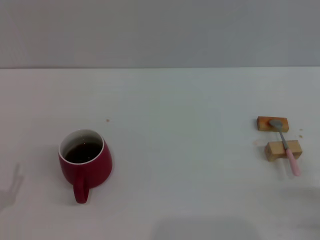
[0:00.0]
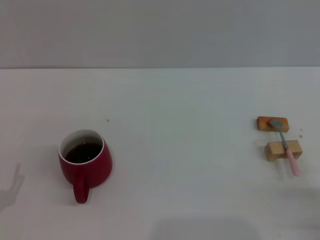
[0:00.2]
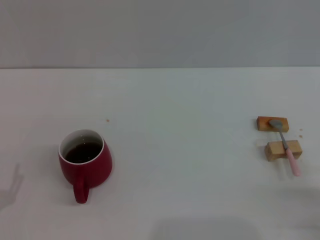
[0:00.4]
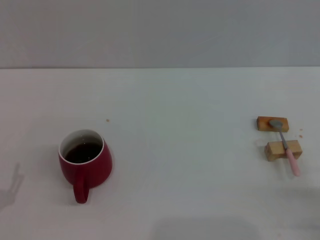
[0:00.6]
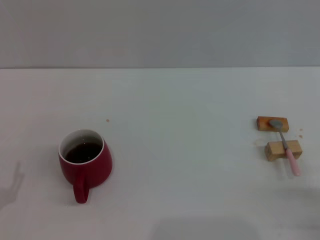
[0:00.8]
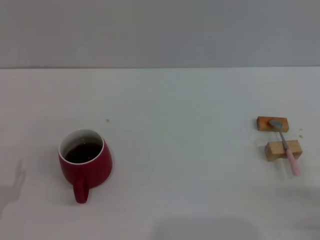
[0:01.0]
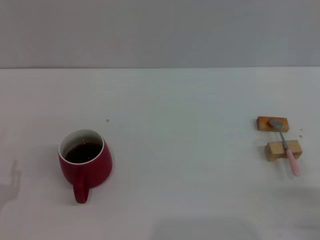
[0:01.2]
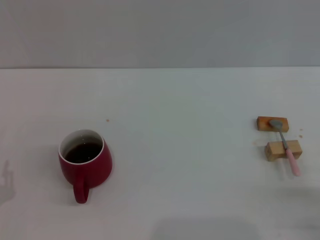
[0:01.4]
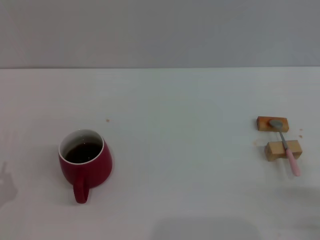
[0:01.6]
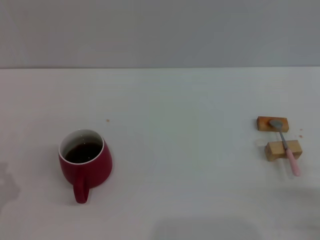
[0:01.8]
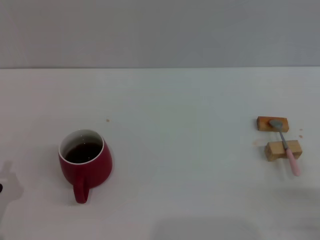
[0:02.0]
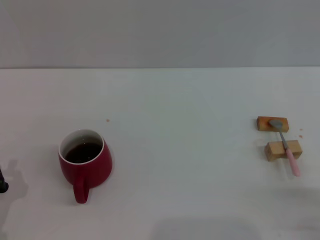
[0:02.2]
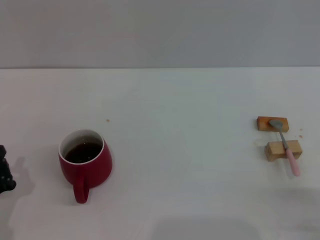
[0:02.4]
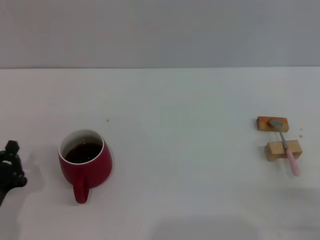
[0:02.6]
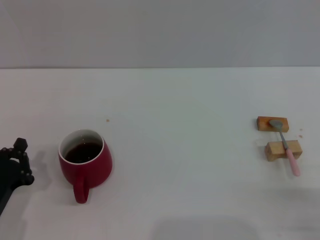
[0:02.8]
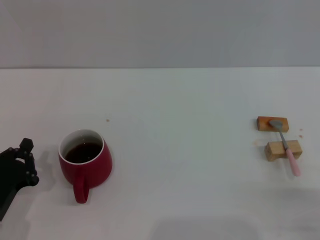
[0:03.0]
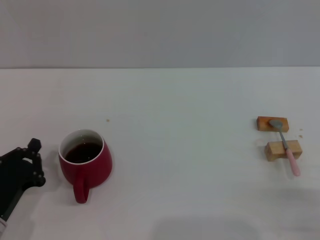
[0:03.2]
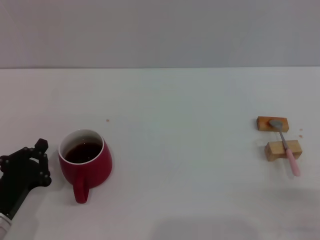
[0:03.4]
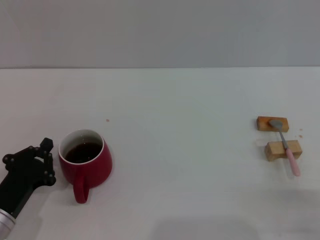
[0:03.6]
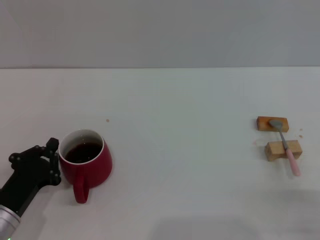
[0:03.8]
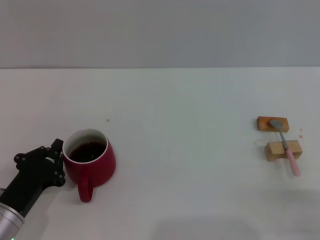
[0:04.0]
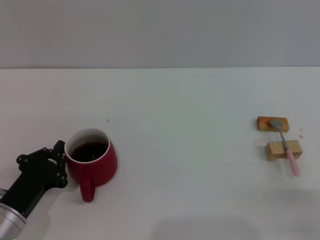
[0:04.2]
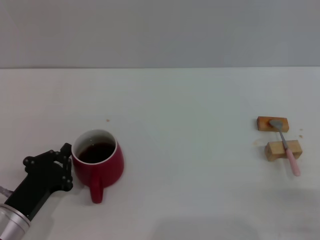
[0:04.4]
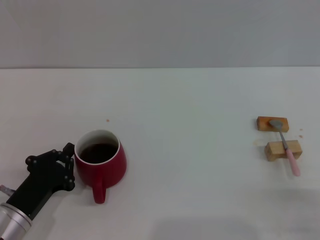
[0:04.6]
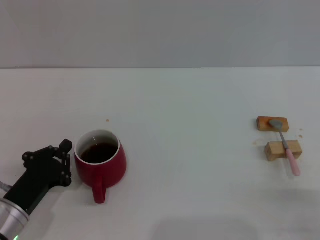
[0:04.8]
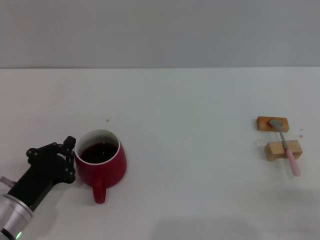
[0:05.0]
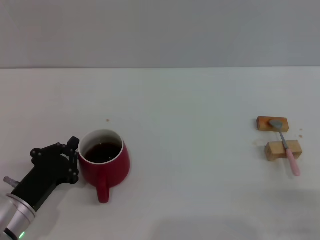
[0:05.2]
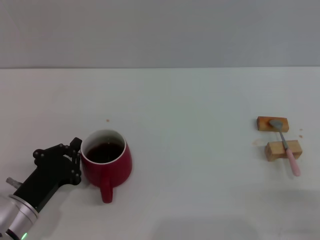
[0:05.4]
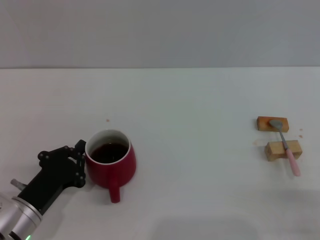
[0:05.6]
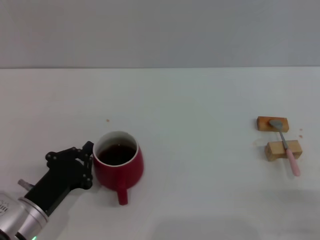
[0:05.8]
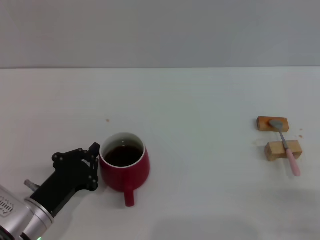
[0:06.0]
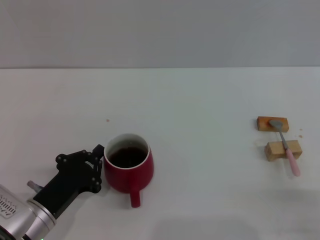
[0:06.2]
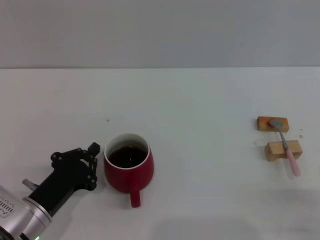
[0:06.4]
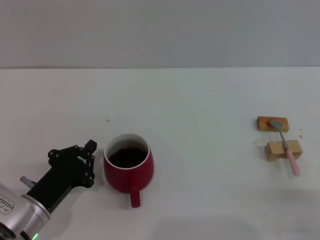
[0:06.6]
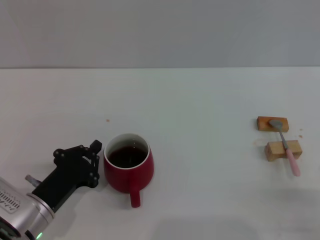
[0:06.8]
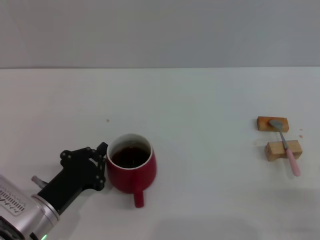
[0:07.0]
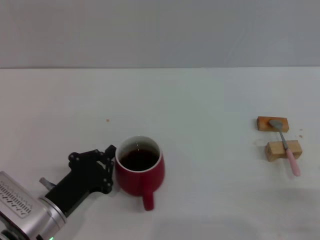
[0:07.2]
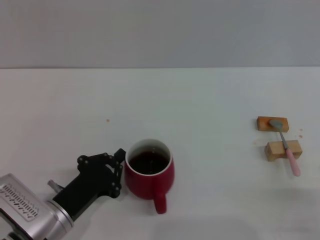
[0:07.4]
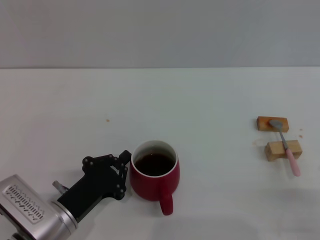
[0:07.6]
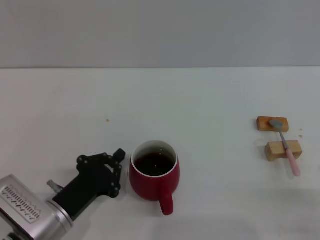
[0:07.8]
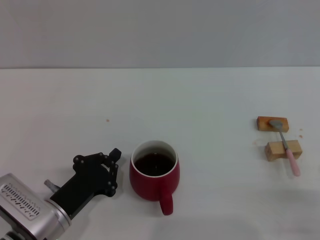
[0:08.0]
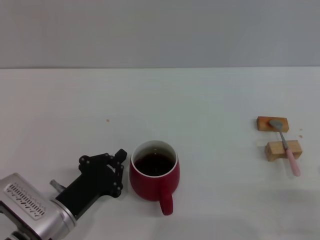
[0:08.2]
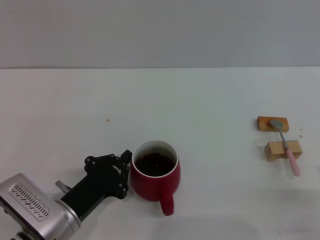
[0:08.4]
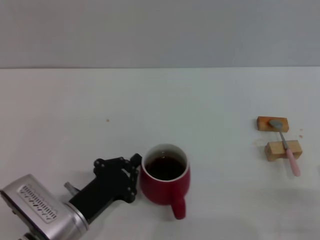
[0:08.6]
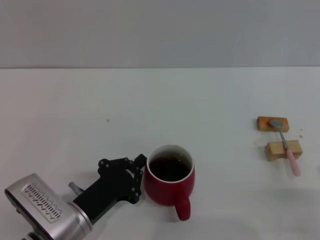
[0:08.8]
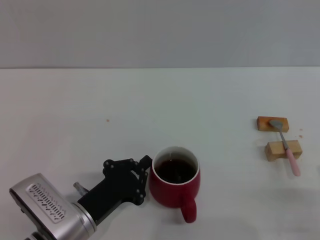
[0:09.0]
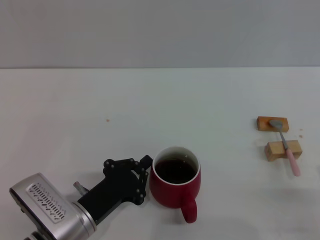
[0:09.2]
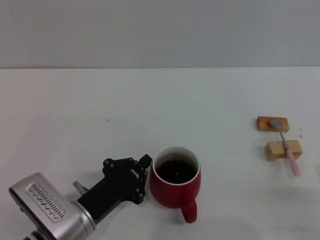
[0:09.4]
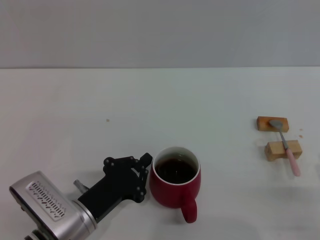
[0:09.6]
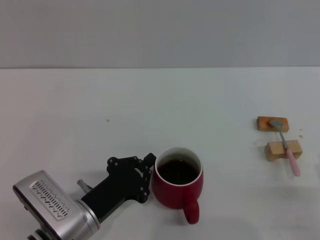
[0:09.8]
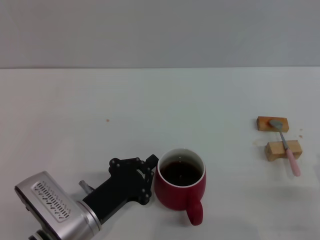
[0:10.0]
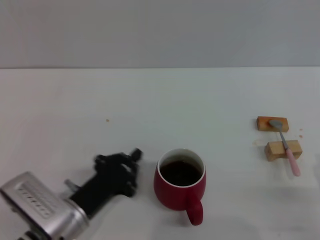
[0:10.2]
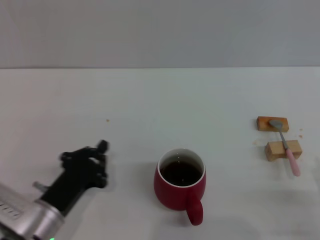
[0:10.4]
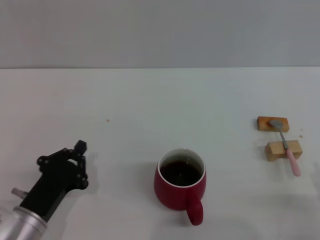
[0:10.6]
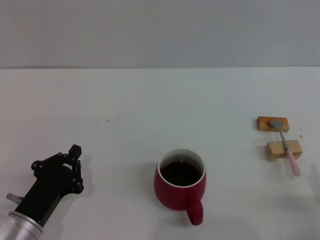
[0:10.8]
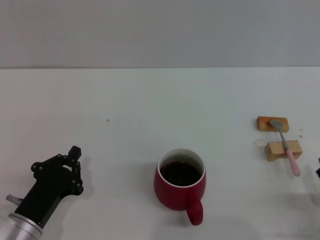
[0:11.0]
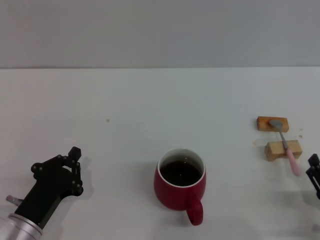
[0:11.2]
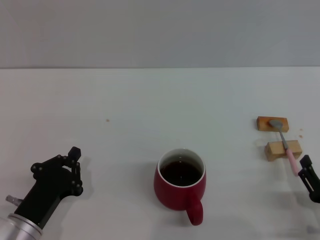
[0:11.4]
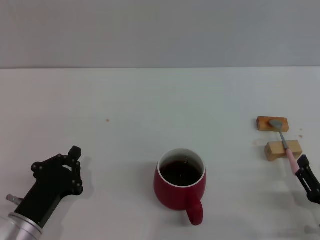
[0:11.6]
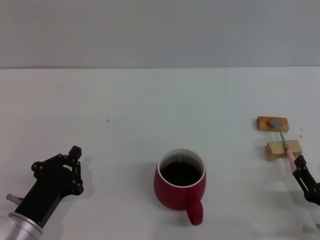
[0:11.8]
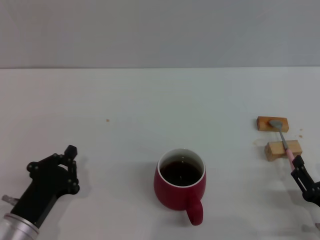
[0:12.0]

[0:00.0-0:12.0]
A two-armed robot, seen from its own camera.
Task of the whole recording: Move the red cup to the center, lift the pink spoon, stir it three times in the cup, and put the spoon into the cup.
Step, 0:00.0 to 0:10.0: Move the cup with coffee to the center of view with the left gripper.
0:01.6 to 0:03.0: The left gripper closes.
0:03.0 to 0:06.0: The grippers stay close to where they were, moving slightly.
0:06.0 to 0:09.0: The grippers make only small movements.
0:09.0 to 0:10.4: The grippers move only a little.
0:10.4 to 0:12.0: There are only small adjustments of the grippers.

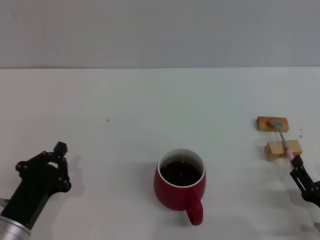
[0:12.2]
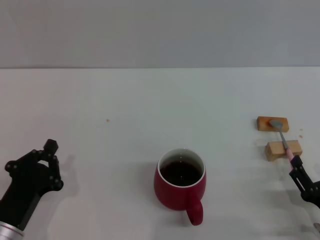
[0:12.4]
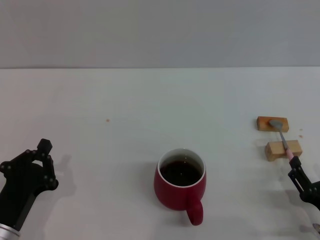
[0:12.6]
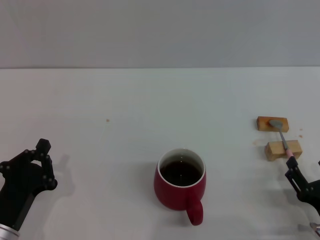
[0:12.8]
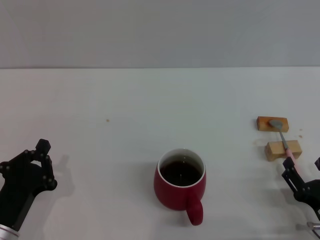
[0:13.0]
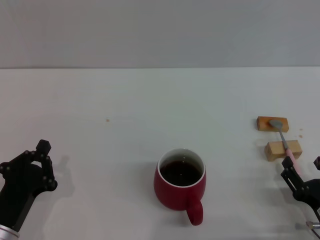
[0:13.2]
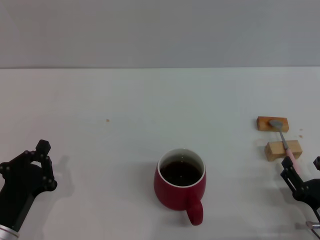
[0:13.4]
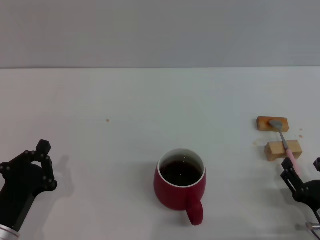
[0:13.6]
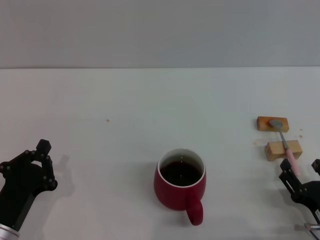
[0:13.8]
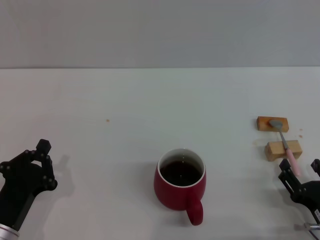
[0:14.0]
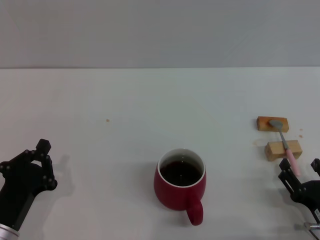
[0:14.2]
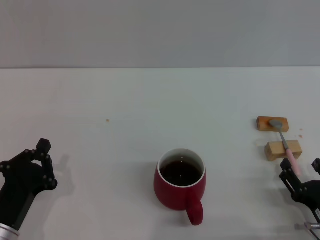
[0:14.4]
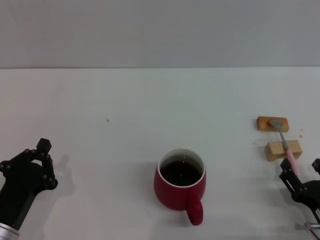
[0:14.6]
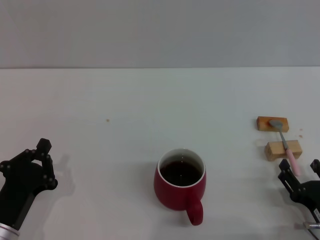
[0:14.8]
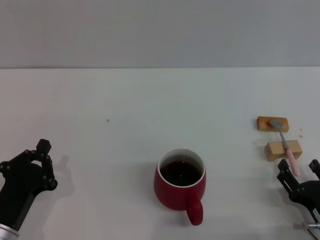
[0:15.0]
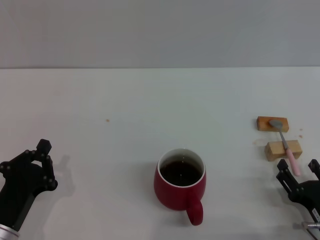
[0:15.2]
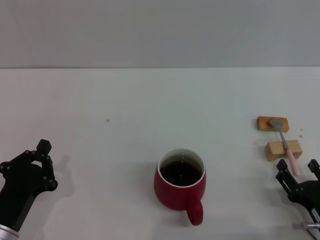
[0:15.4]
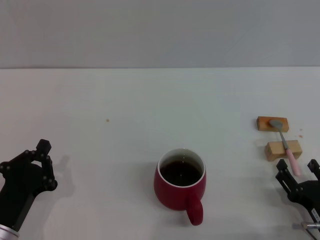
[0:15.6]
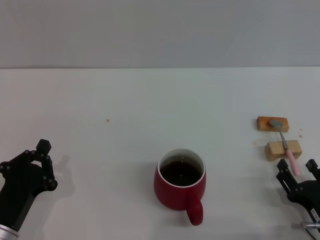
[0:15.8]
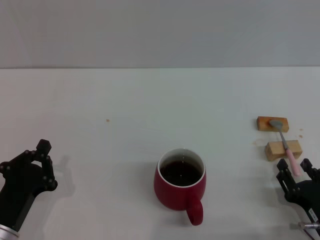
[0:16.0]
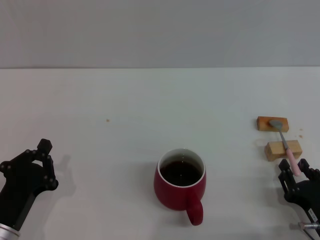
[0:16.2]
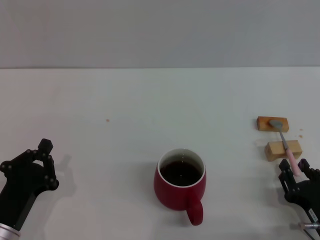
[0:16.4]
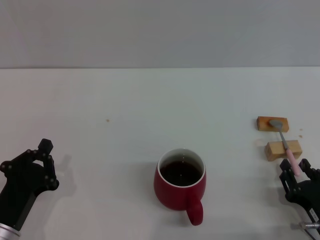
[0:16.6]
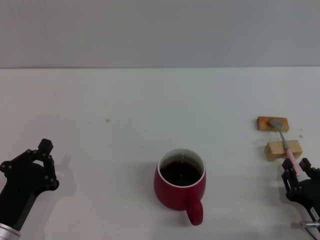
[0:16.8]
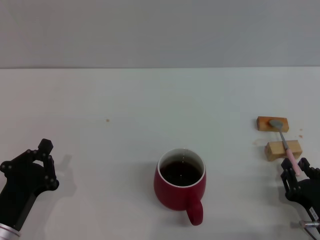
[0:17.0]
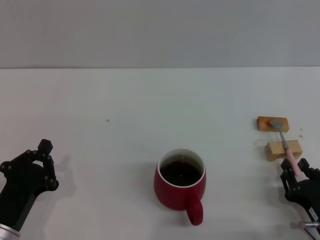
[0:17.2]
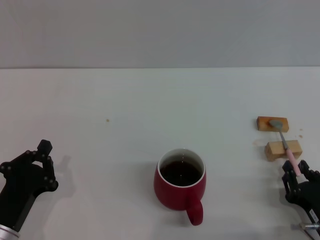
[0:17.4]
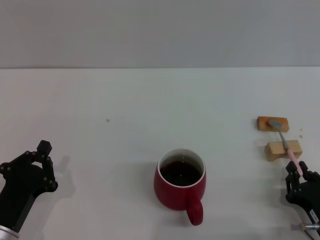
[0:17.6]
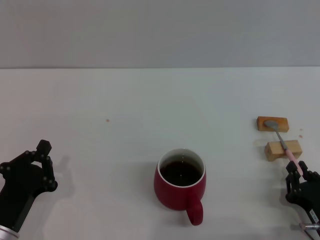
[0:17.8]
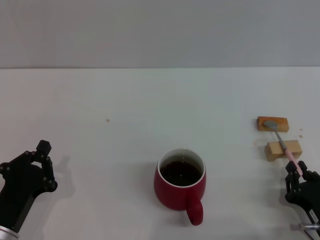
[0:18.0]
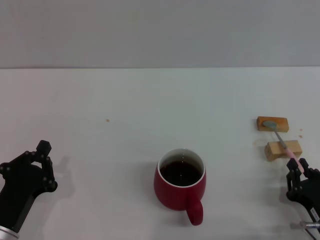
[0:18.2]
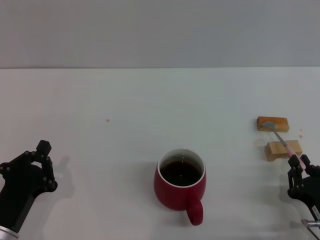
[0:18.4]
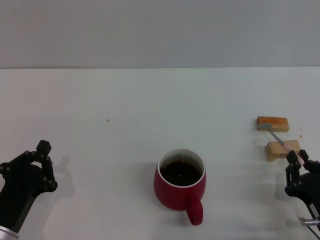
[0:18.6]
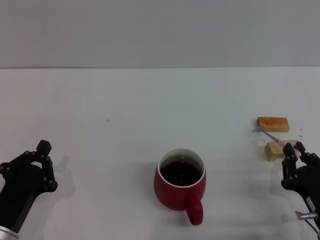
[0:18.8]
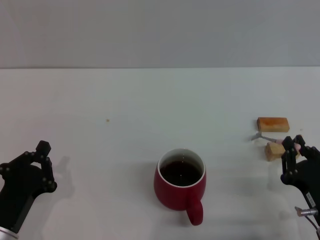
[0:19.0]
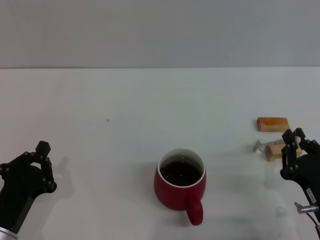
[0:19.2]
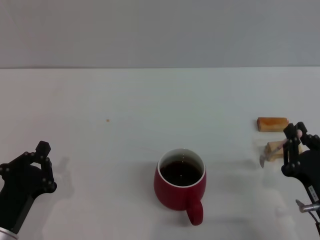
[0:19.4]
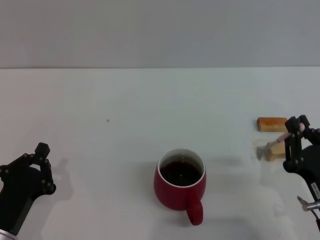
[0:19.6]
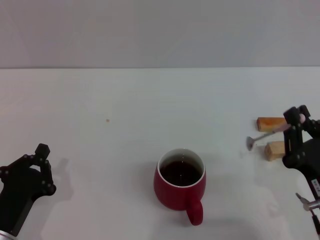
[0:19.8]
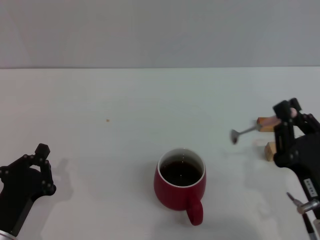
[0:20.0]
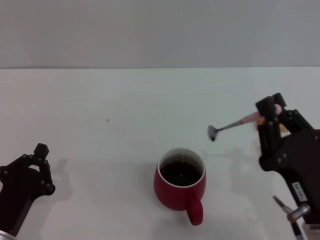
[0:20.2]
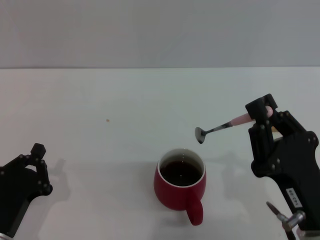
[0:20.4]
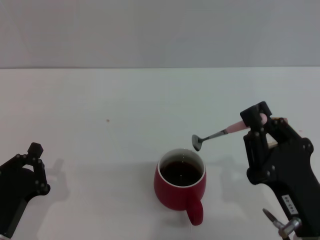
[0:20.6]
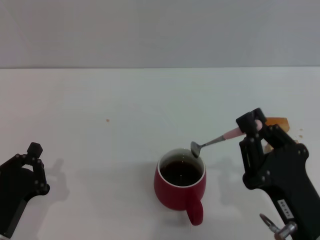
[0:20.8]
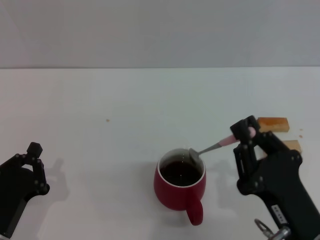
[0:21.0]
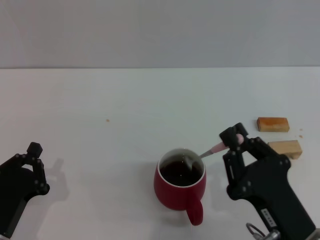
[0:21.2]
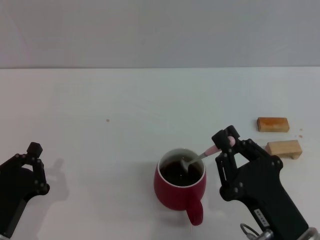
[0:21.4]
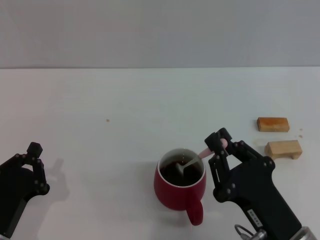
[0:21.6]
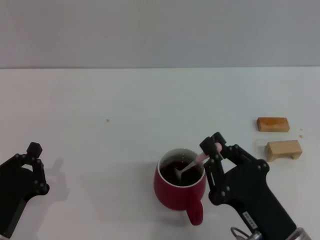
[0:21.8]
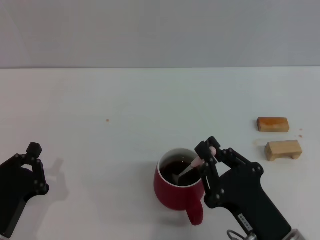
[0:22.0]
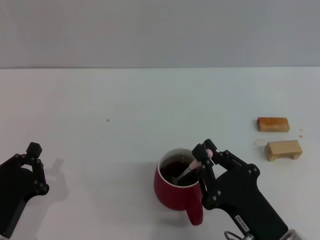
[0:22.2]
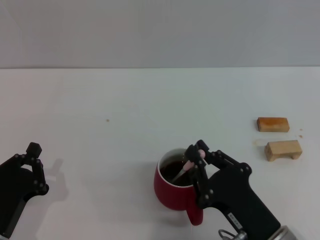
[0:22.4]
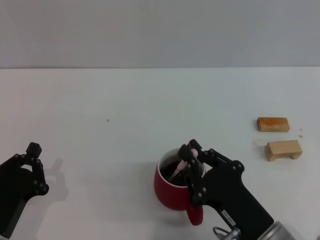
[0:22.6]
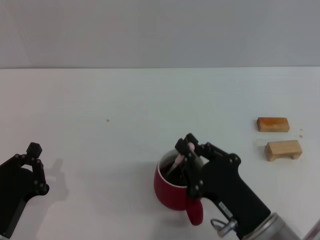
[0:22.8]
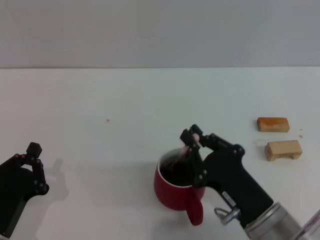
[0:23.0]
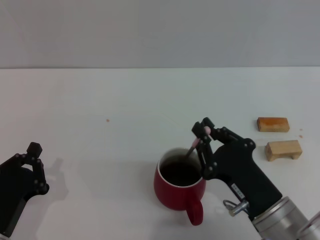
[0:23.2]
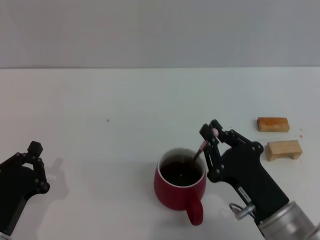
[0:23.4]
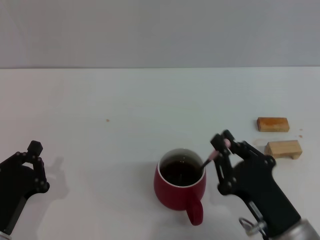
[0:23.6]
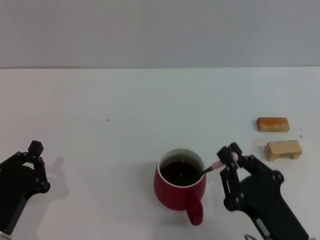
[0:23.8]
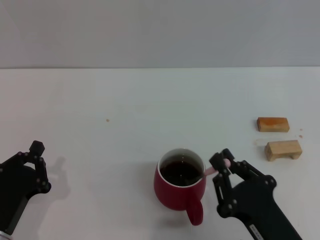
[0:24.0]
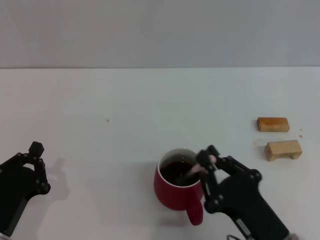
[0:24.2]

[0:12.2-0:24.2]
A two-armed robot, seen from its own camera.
Task of the whole recording: Move the red cup to the center, lift the pink spoon, stir it three times in the cup, and put the spoon into the cup.
Step, 0:12.2 to 0:19.6: Pick up the spoon with the right gripper.
0:12.2 to 0:13.8: Both grippers stay put.
0:13.8 to 0:15.2: Neither gripper changes place.
0:15.2 to 0:16.6: The right gripper closes up.
0:16.6 to 0:18.2: The right gripper closes its fingers.
0:18.2 to 0:19.8: The right gripper shifts some 5 cm upward.
0:19.8 to 0:21.2: The right gripper moves to the left, some 5 cm.
0:21.2 to 0:24.2: There are only small adjustments of the grippers.
